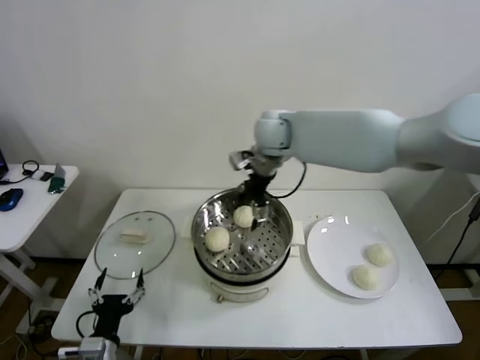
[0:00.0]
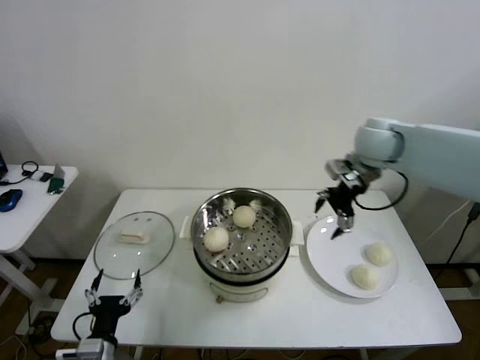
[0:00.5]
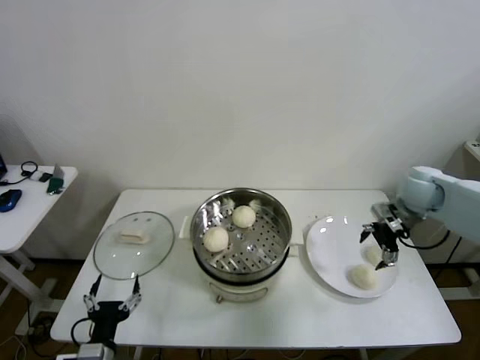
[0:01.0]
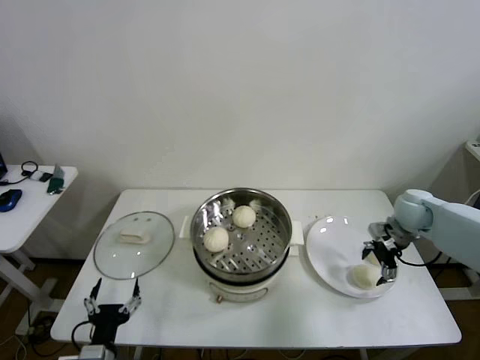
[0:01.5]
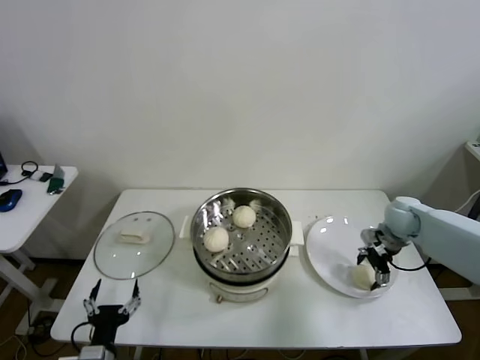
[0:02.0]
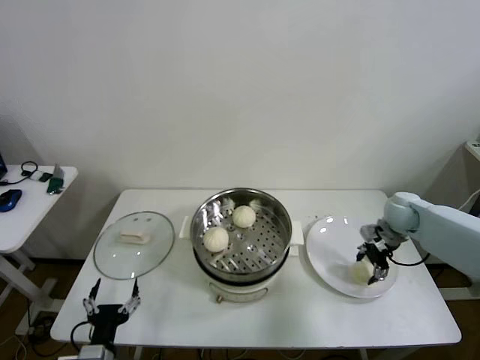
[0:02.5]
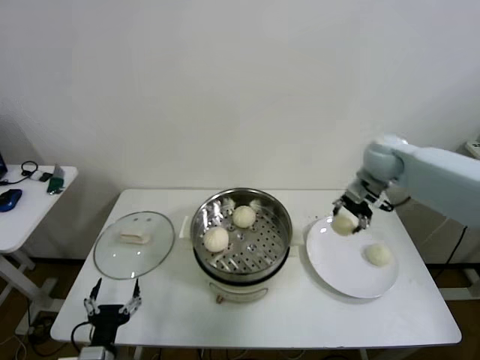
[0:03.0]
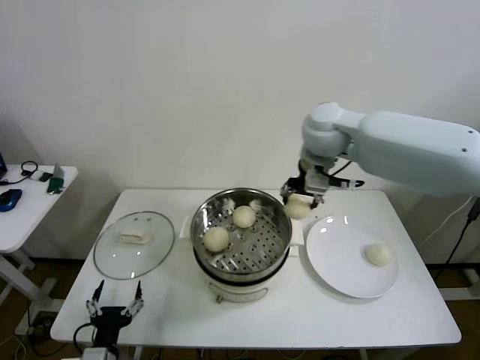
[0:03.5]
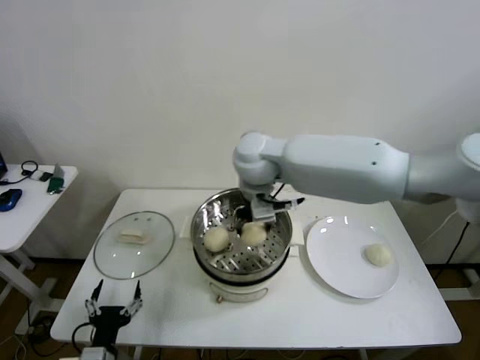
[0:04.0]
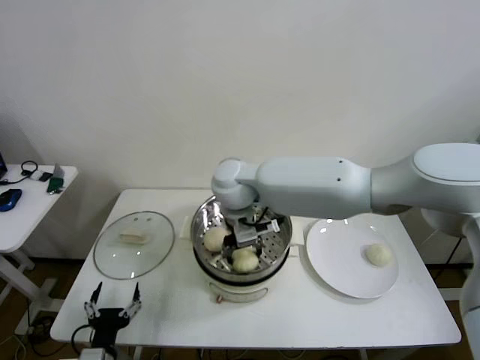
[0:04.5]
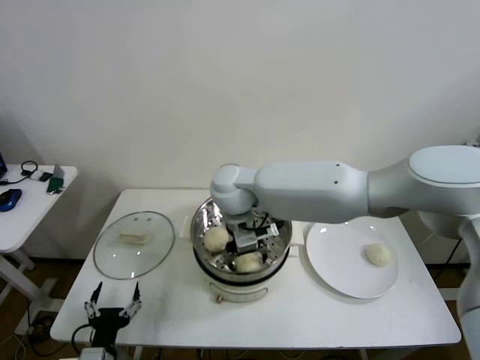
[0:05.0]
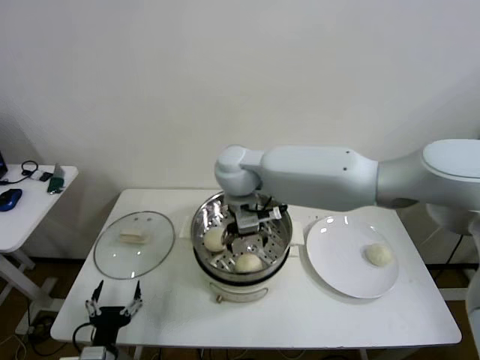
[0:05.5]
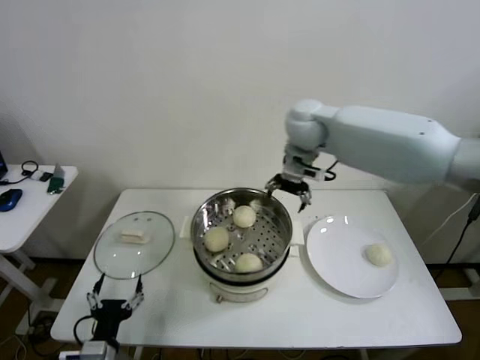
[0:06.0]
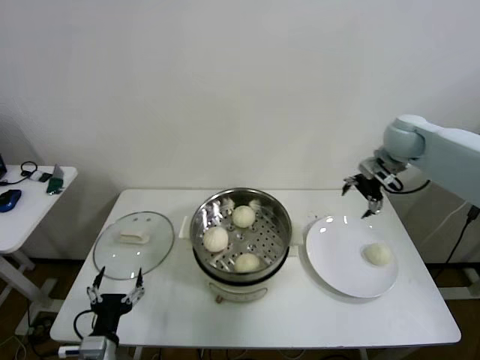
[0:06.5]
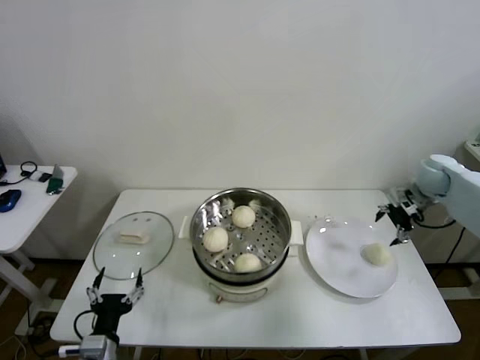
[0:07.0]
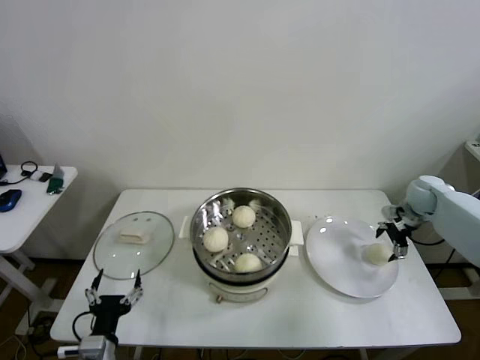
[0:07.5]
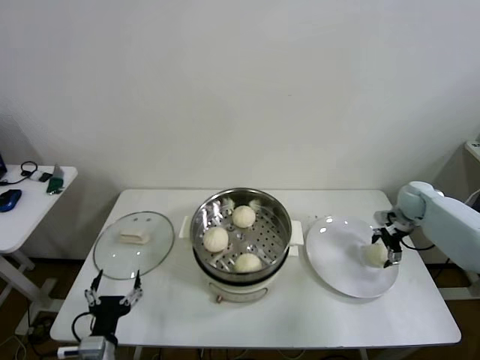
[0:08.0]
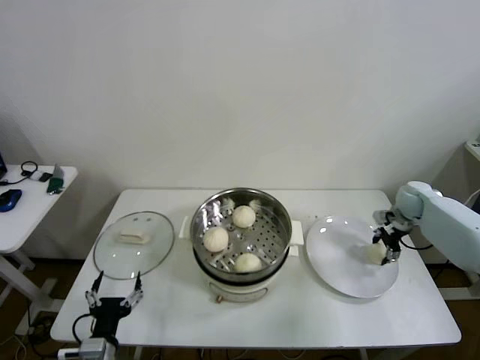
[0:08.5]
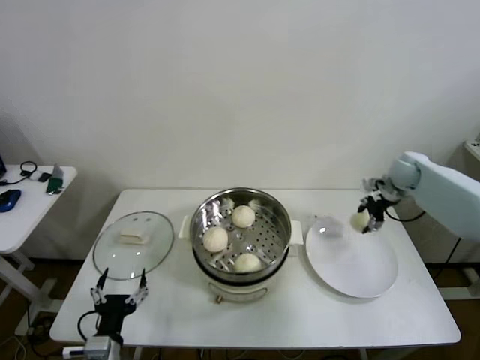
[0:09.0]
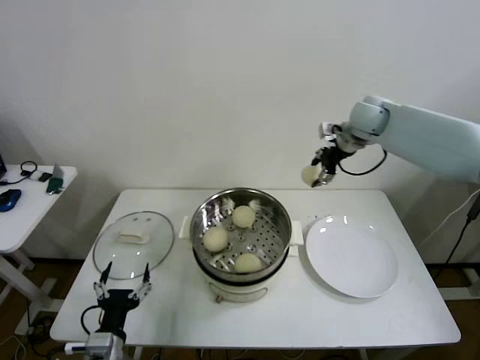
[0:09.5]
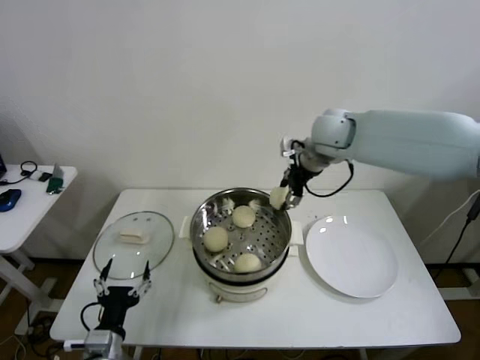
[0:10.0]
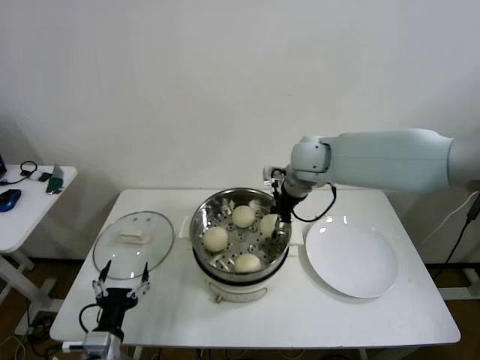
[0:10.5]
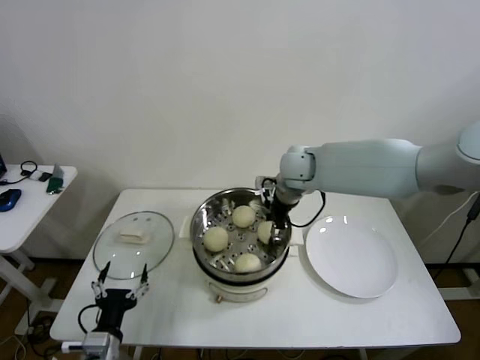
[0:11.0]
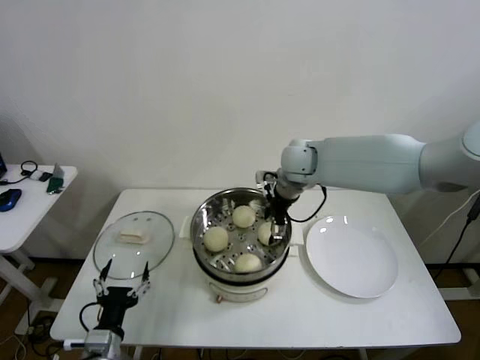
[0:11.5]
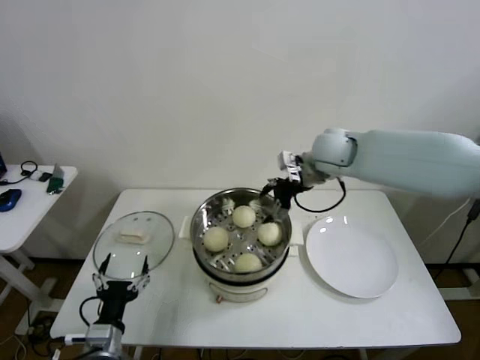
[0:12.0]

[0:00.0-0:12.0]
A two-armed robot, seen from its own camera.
Step, 0:00.0 to 0:02.0: Grasp the baozi in the plate with right gripper.
Step, 0:02.5 to 0:05.0: Place the baozi on the steamer with right gripper.
Step, 0:05.5 to 0:08.0: Grasp the baozi in the plate with right gripper.
Step, 0:09.0 to 0:11.0: Place the baozi on the steamer with right gripper.
0:00.0 to 0:02.0: The right gripper shifts roughly 40 cm to the right and downward.
0:02.0 to 0:04.0: The right gripper travels to the left and upward by roughly 40 cm, and closes.
0:04.0 to 0:06.0: The right gripper heads to the right and forward, covering approximately 15 cm, and opens up.
0:06.0 to 0:08.0: The right gripper heads to the right and downward, covering about 40 cm.
0:08.0 to 0:10.0: The right gripper moves to the left and upward, approximately 35 cm, and closes its fingers.
0:10.0 to 0:12.0: The right gripper opens up.

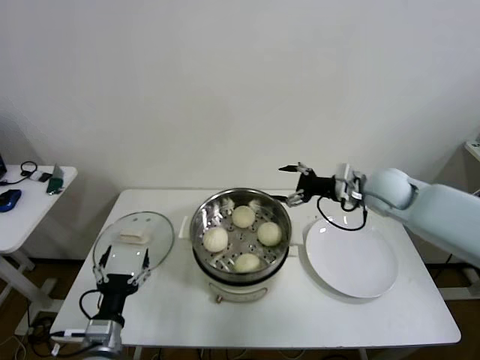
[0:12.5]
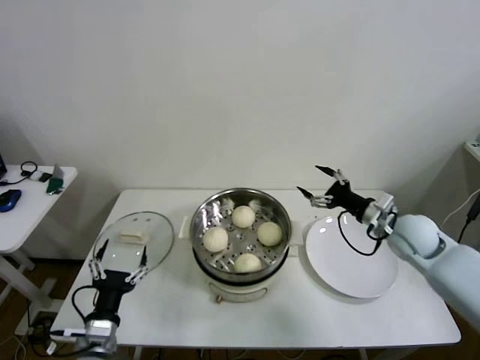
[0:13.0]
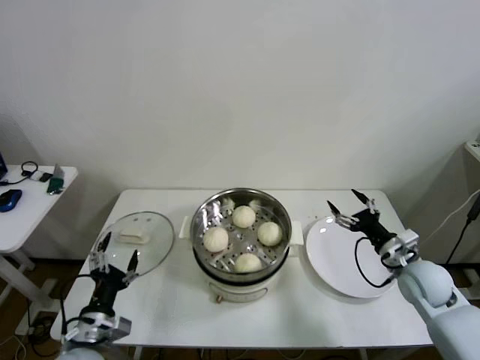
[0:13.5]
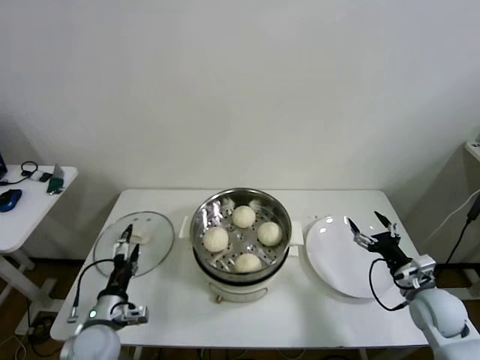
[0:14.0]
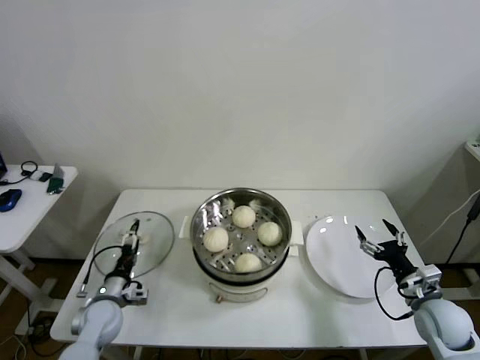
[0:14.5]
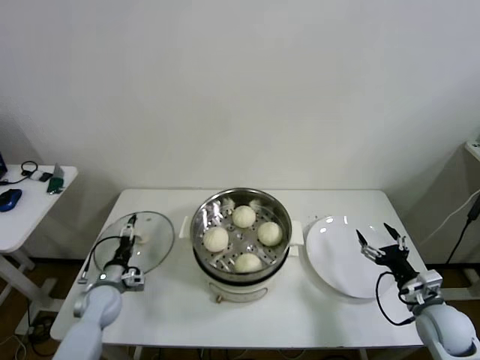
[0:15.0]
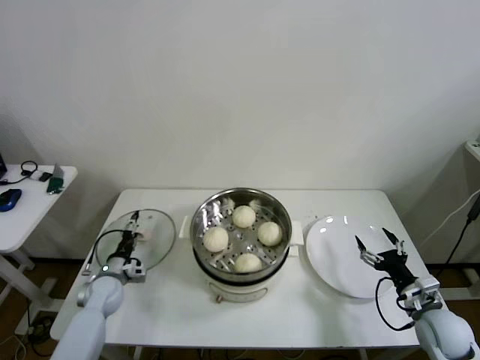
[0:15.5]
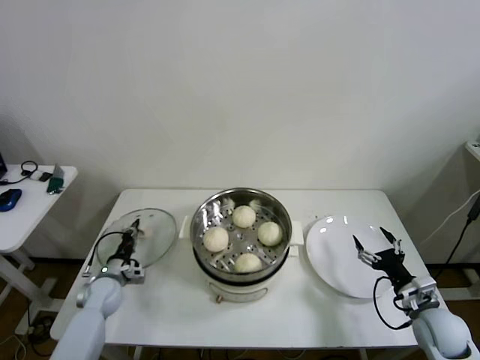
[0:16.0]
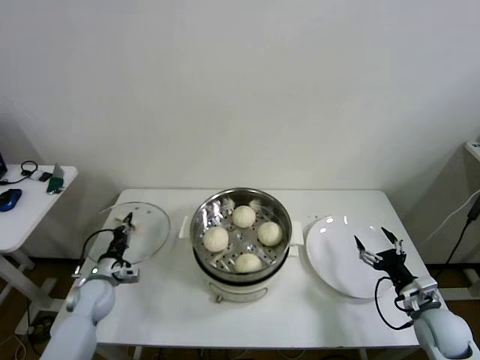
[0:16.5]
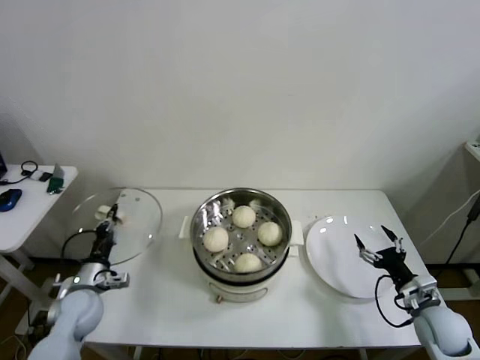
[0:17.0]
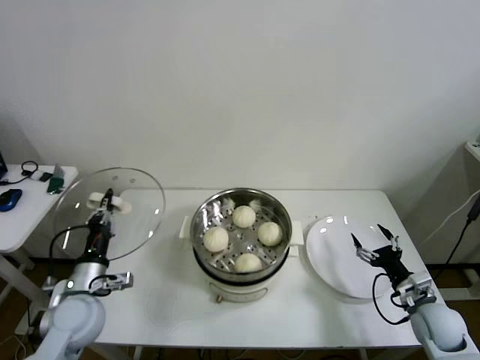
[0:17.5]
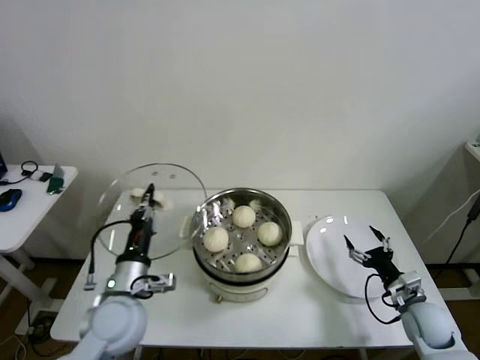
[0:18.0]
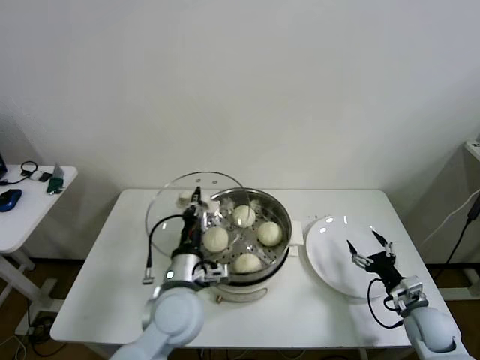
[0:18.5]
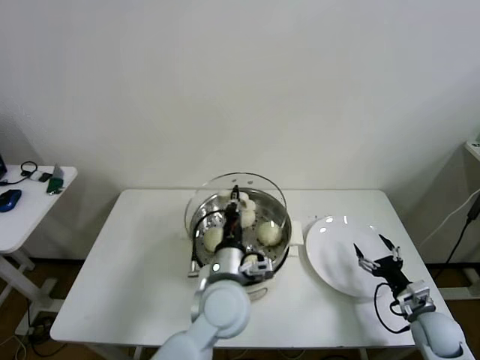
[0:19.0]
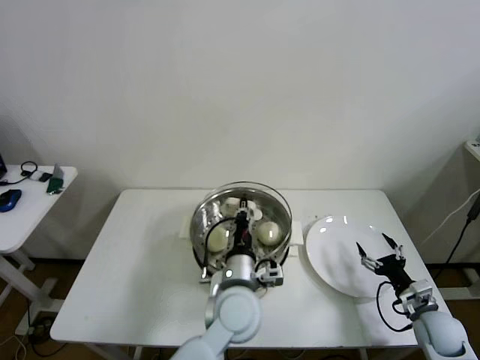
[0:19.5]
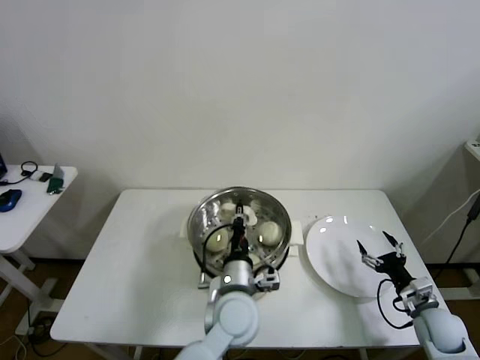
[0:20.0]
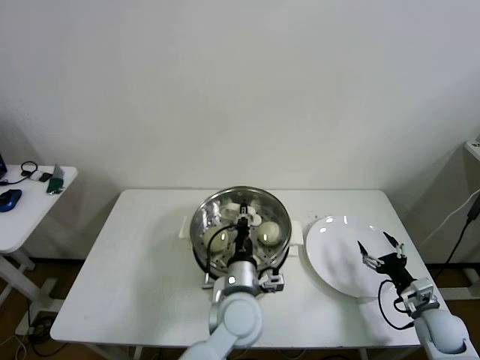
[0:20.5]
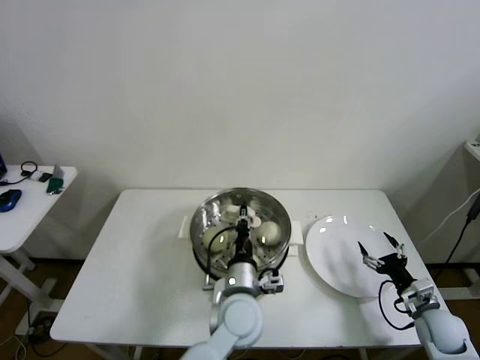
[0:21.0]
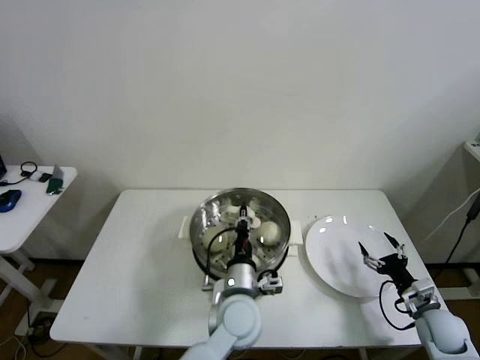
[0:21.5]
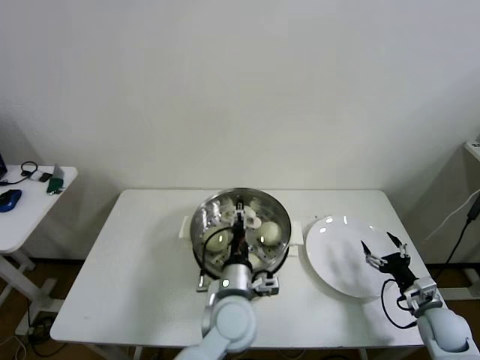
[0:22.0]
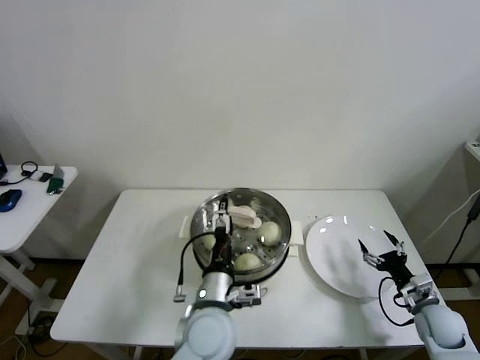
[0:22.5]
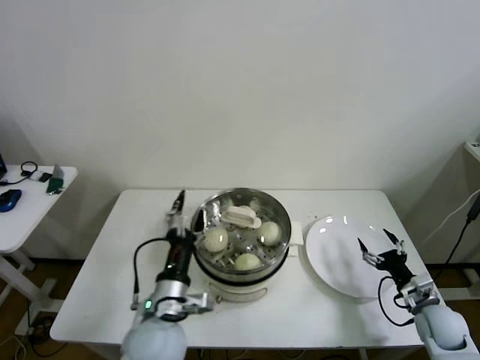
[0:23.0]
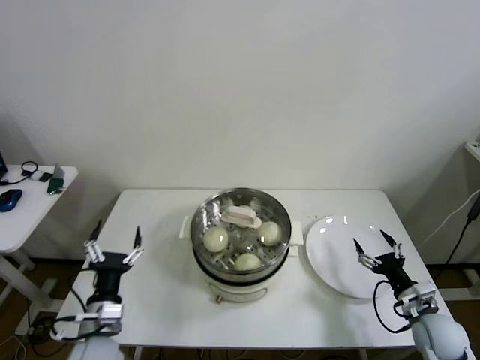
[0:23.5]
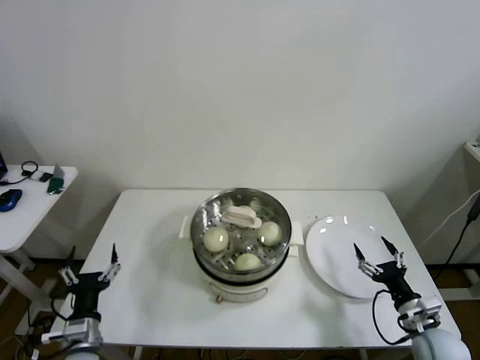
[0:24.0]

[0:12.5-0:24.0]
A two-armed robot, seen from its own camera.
Step, 0:12.5 to 0:16.0: Grasp the pot lid with left gripper.
Step, 0:16.5 to 0:21.5: Place the pot lid on the steamer with left gripper.
0:12.5 to 0:14.5: The left gripper heads forward, downward and to the left, covering approximately 15 cm, while the right gripper heads backward, downward and to the right, covering some 30 cm.
0:14.5 to 0:16.5: The left gripper moves forward, about 5 cm, and closes.
0:16.5 to 0:18.5: The left gripper shifts roughly 30 cm to the right and upward.
0:18.5 to 0:20.0: The left gripper is displaced to the right by about 10 cm.
0:20.0 to 0:22.0: The left gripper opens its fingers.
0:22.0 to 0:24.0: The right gripper shifts by some 5 cm, while the left gripper goes about 30 cm to the left, and opens up.

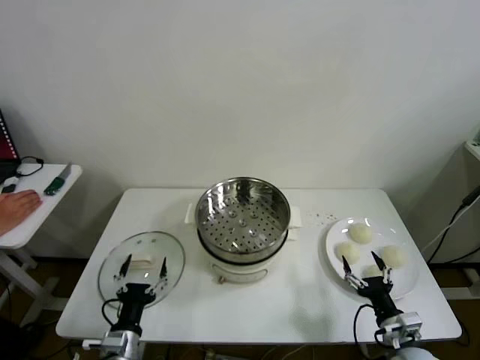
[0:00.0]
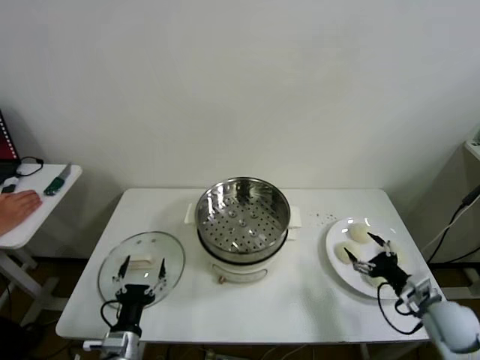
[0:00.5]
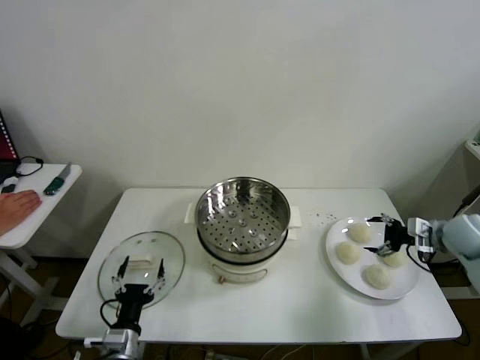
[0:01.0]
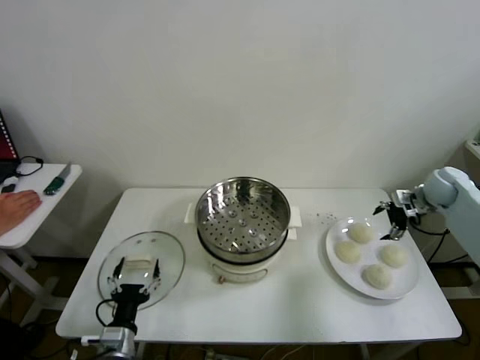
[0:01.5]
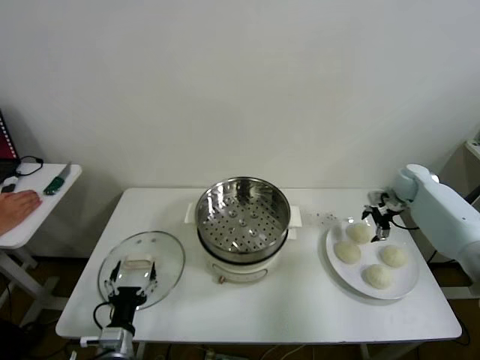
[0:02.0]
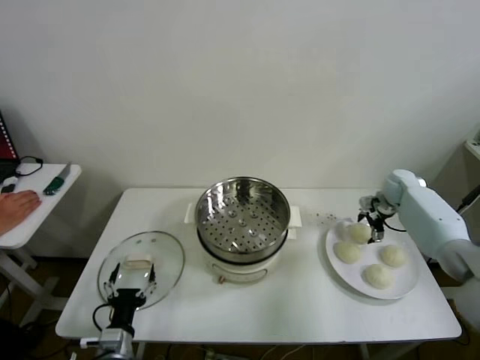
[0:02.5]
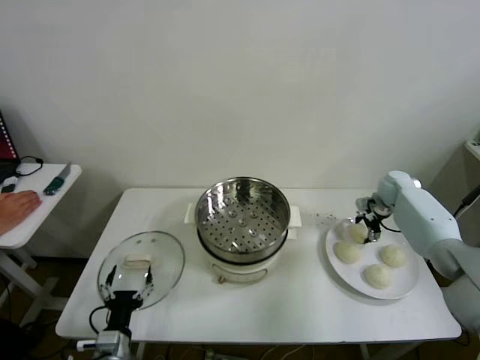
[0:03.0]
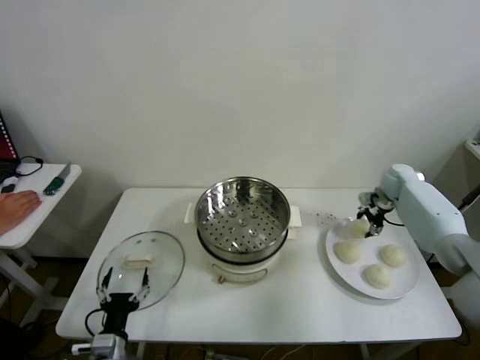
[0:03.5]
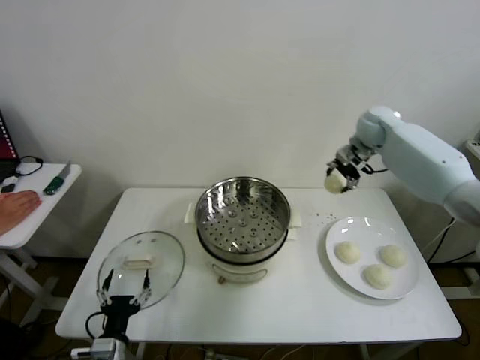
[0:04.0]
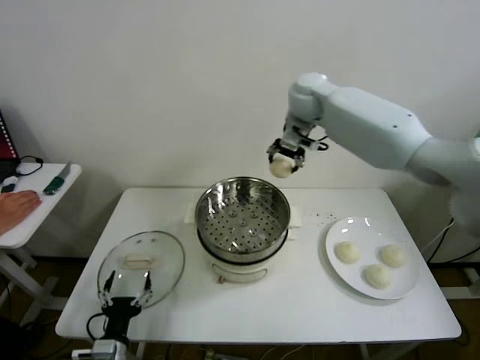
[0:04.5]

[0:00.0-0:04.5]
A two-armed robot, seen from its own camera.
Step, 0:00.0 to 0:02.5: Grasp the baozi in the plate with right gripper.
0:02.0 to 0:04.5: The right gripper moves to the left and upward, approximately 40 cm, and closes its fingers.
